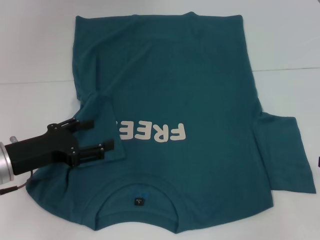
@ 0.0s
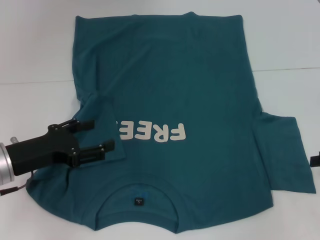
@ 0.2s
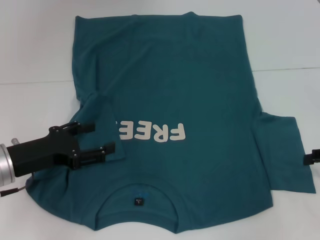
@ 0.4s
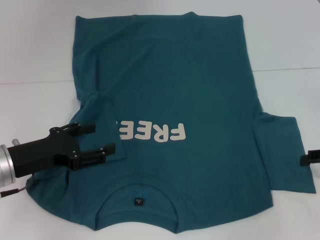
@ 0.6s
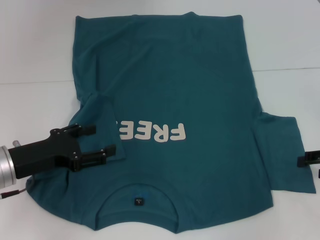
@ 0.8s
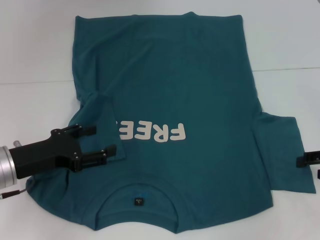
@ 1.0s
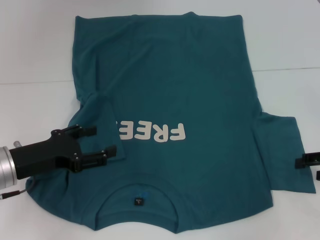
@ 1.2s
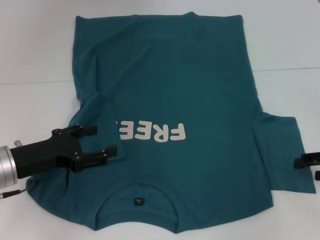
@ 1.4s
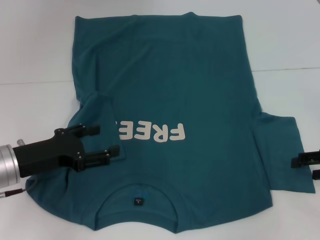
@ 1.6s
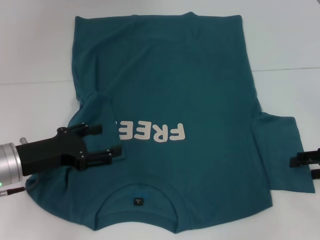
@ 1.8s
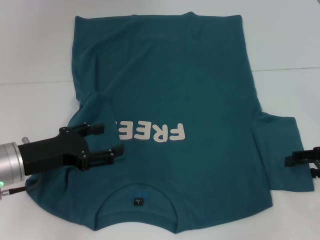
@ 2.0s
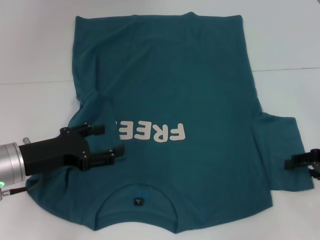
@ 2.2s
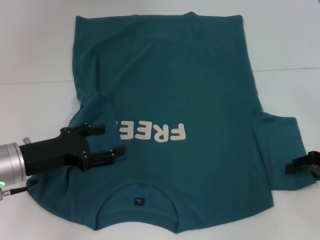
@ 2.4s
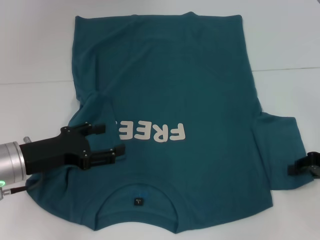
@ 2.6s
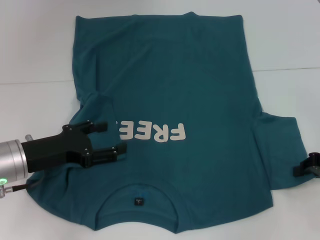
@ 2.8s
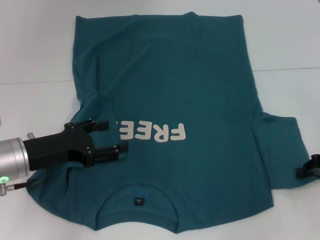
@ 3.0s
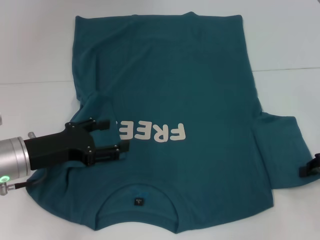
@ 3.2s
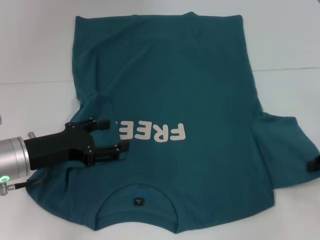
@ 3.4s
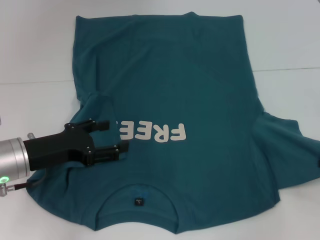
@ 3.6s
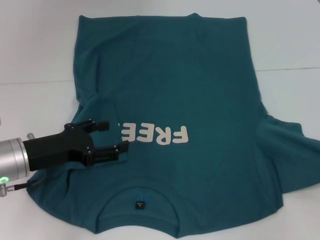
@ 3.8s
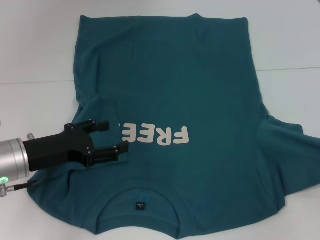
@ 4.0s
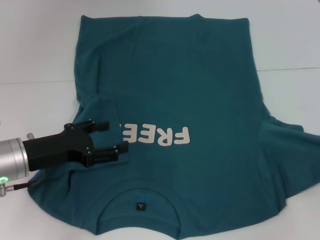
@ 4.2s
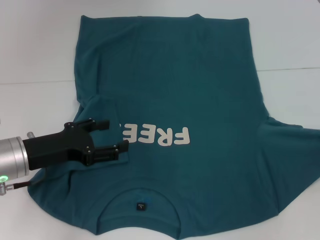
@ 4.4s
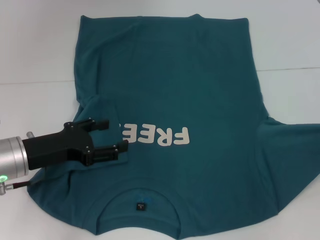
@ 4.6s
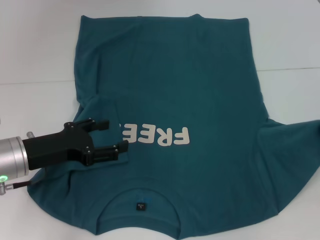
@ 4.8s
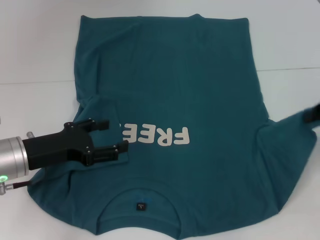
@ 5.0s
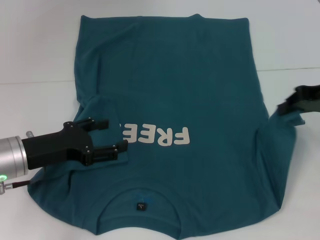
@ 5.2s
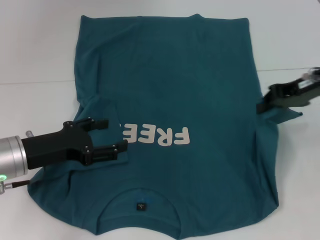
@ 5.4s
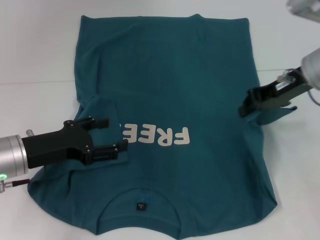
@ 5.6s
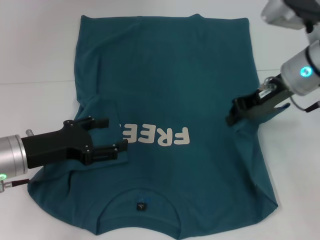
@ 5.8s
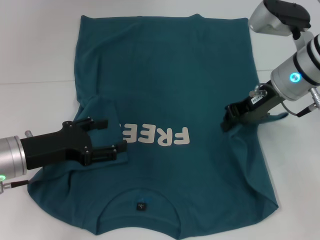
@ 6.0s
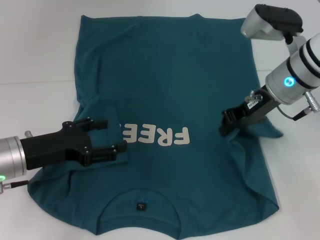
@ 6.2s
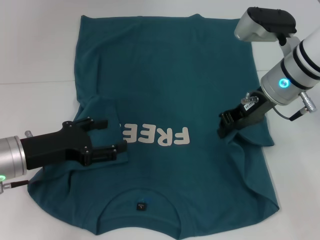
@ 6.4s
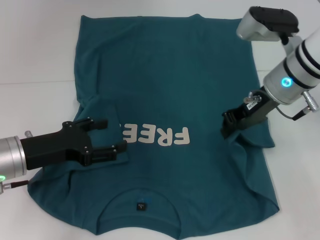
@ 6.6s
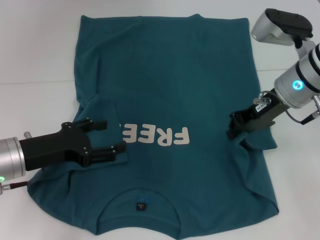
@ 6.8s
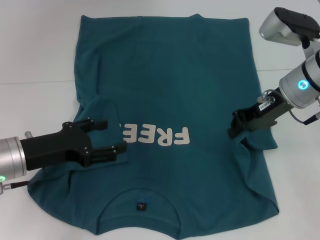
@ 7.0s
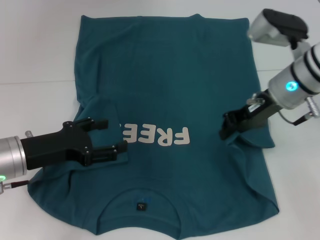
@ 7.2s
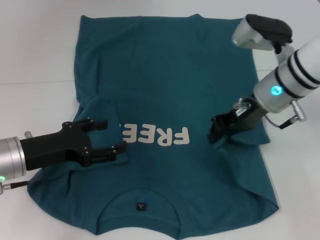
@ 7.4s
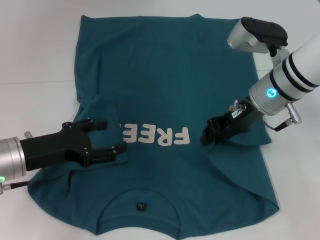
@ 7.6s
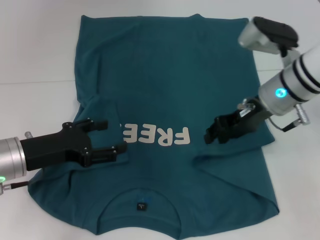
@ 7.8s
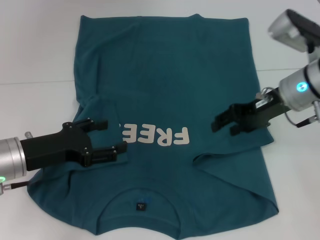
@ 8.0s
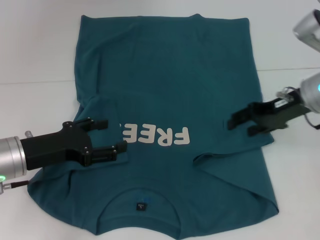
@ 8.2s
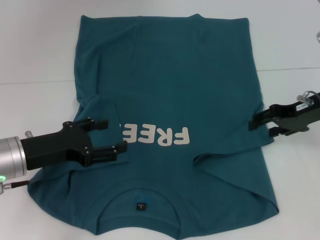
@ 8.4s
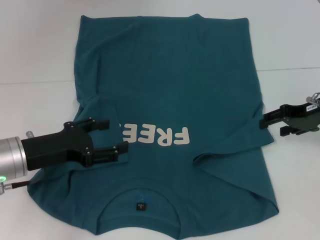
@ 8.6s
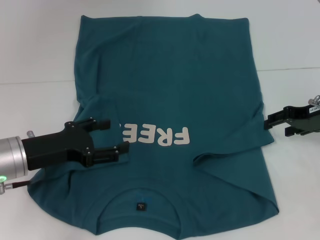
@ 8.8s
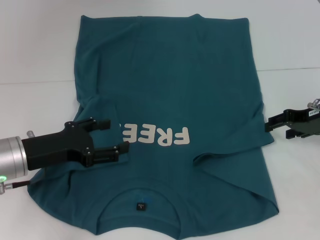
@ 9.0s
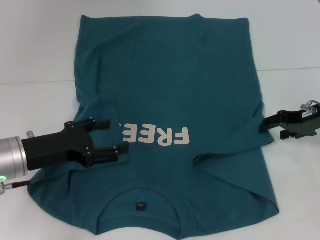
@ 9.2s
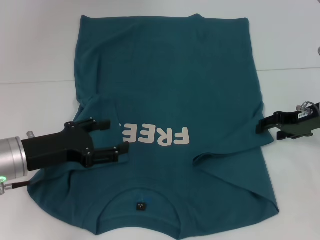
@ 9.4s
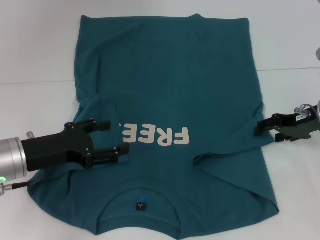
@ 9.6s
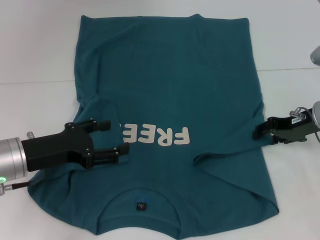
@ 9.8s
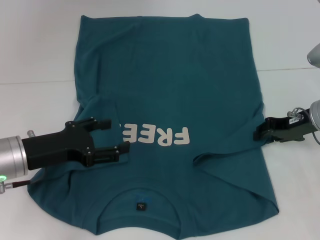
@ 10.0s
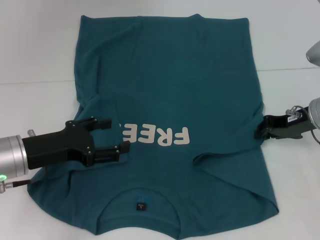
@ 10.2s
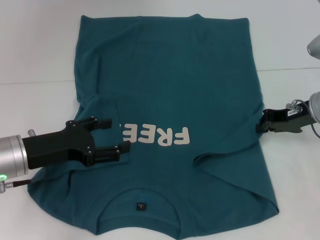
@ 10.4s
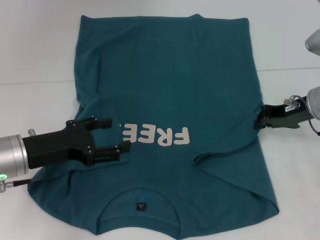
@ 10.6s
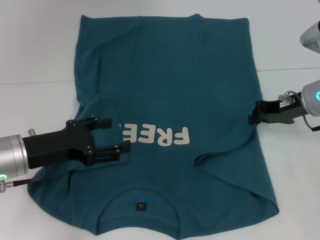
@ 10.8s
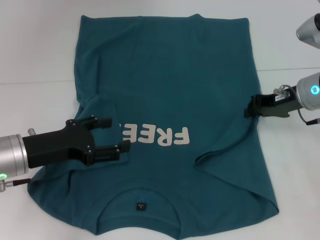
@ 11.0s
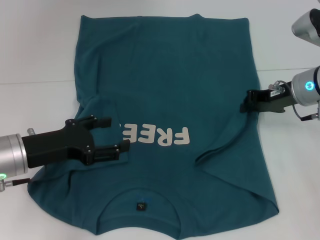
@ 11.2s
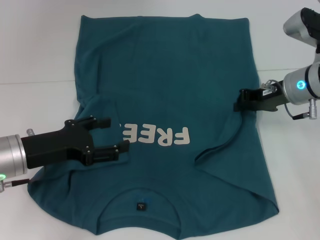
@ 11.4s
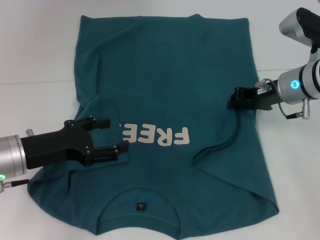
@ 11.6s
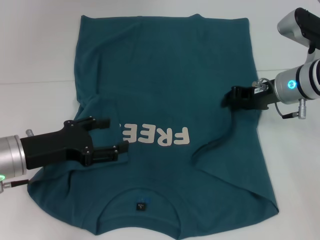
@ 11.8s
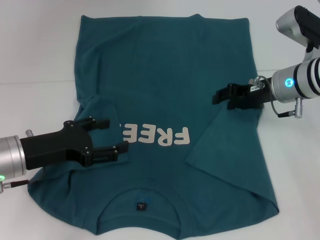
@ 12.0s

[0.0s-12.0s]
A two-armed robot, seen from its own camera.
0.0s to 1.6s: The right gripper ends up approximately 5 cm from where it was.
1.6s to 3.0s: The right gripper closes its fingers.
3.0s to 4.4s: The right gripper heads upward, covering about 5 cm.
4.4s to 6.0s: The right gripper shifts approximately 25 cm to the left and forward.
6.0s to 7.6s: There are only small adjustments of the grippers.
7.6s to 9.0s: The right gripper moves to the right, roughly 15 cm, and opens up.
9.0s to 10.4s: The right gripper closes up.
10.4s to 12.0s: The right gripper goes roughly 5 cm to the left.

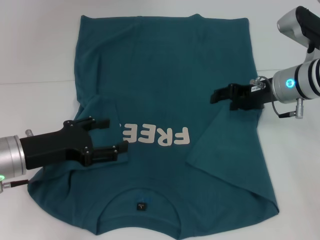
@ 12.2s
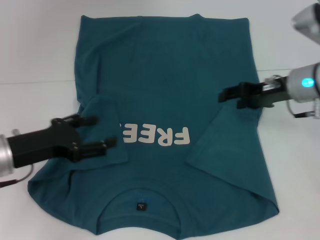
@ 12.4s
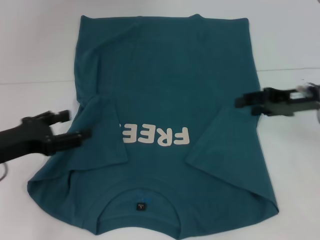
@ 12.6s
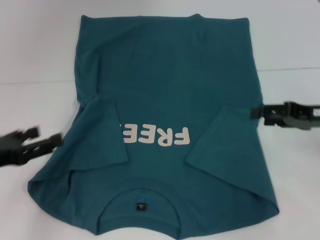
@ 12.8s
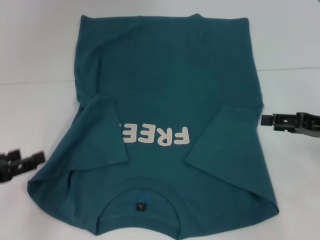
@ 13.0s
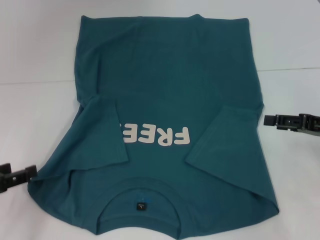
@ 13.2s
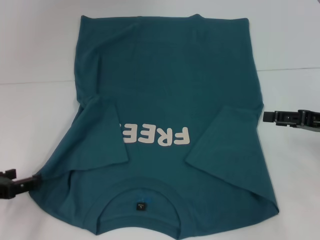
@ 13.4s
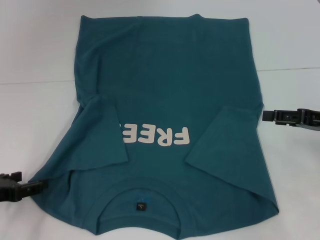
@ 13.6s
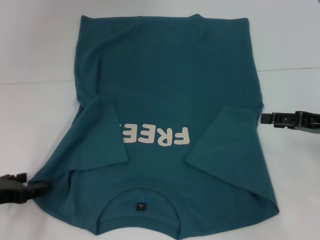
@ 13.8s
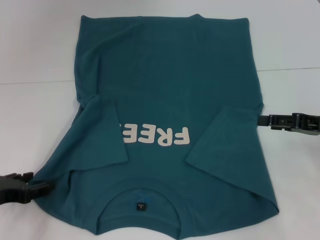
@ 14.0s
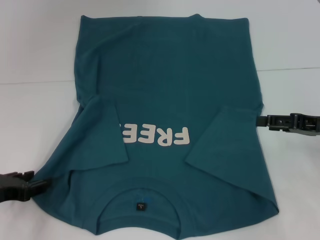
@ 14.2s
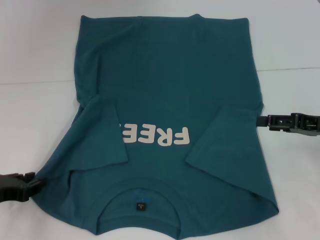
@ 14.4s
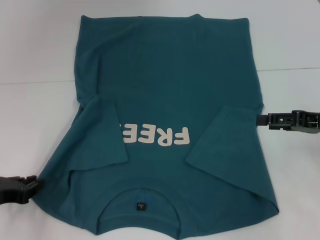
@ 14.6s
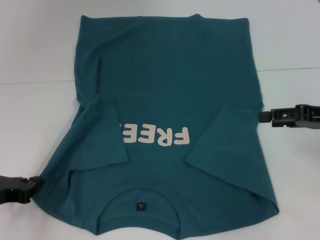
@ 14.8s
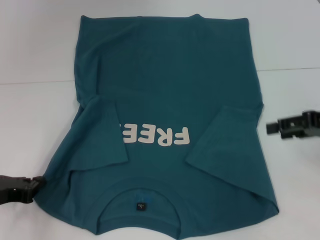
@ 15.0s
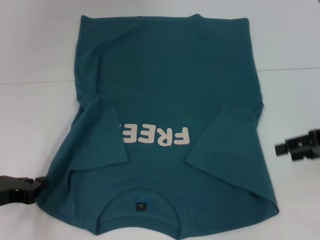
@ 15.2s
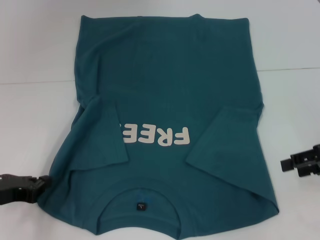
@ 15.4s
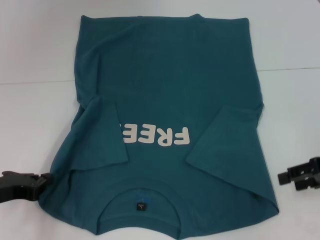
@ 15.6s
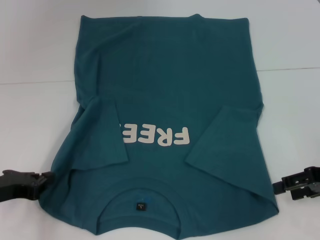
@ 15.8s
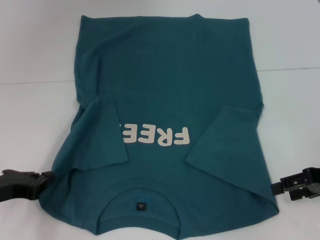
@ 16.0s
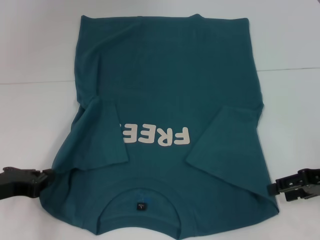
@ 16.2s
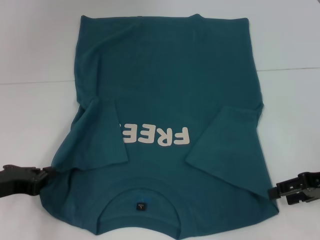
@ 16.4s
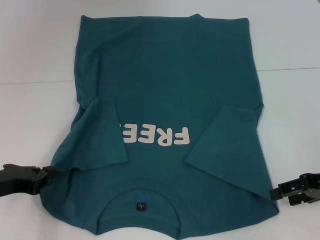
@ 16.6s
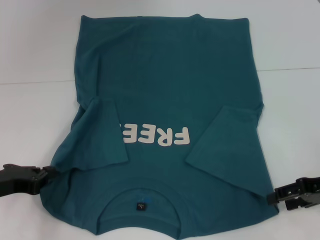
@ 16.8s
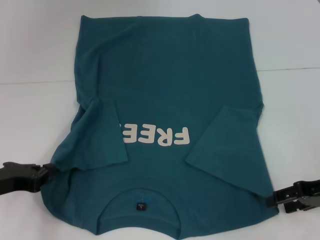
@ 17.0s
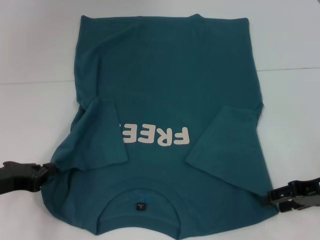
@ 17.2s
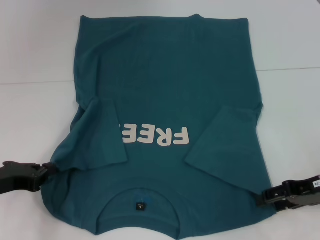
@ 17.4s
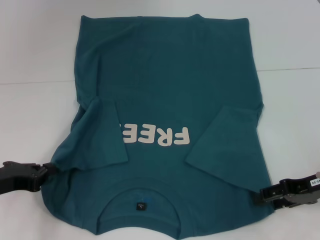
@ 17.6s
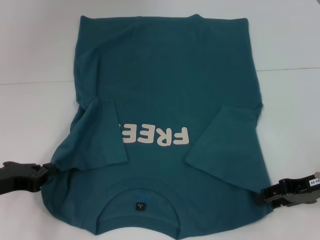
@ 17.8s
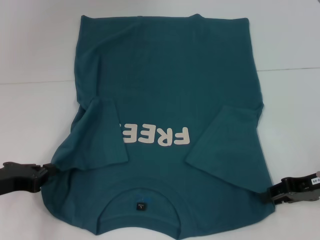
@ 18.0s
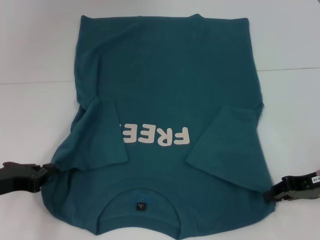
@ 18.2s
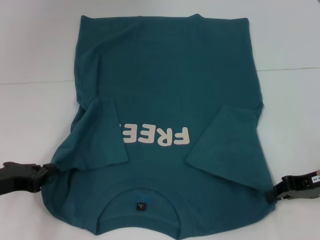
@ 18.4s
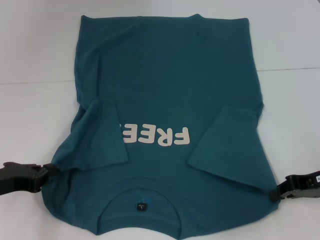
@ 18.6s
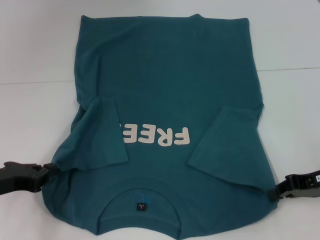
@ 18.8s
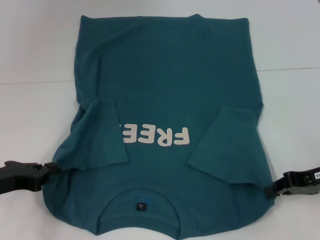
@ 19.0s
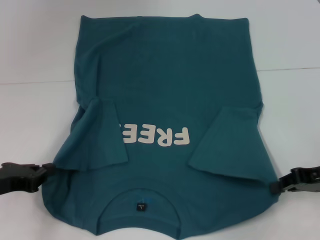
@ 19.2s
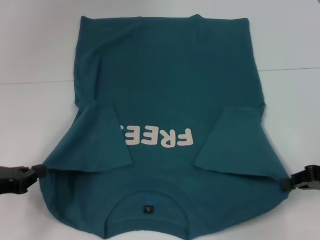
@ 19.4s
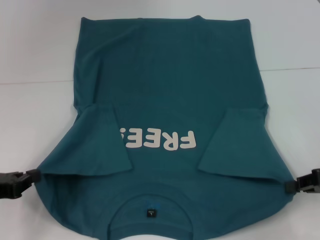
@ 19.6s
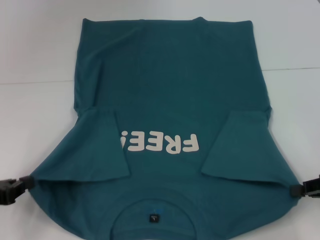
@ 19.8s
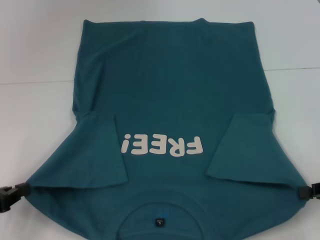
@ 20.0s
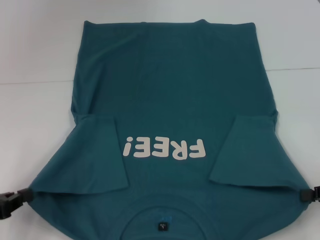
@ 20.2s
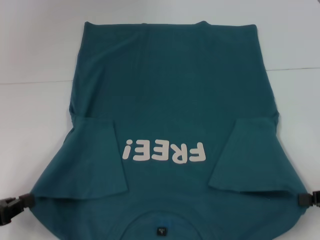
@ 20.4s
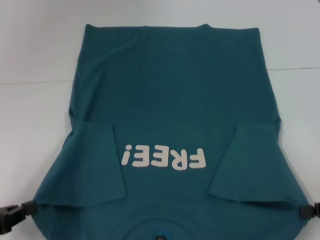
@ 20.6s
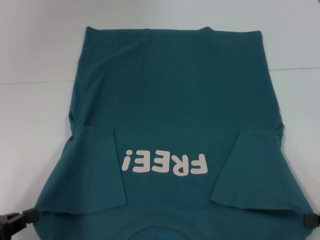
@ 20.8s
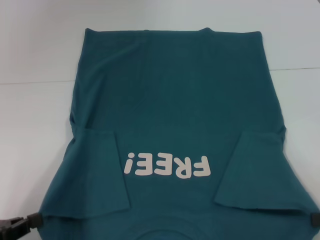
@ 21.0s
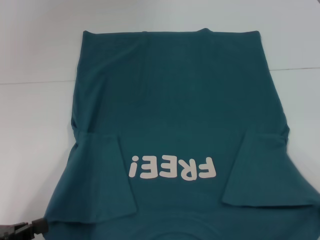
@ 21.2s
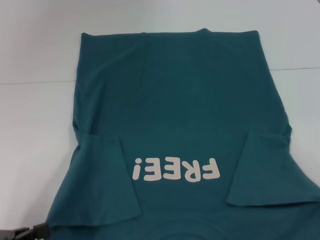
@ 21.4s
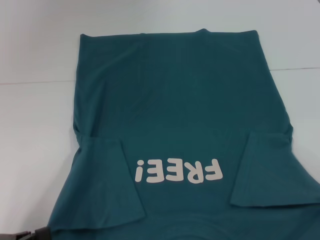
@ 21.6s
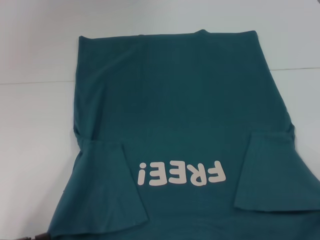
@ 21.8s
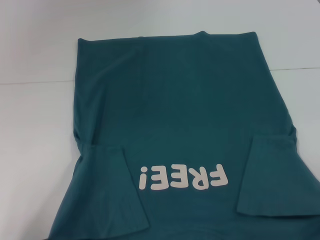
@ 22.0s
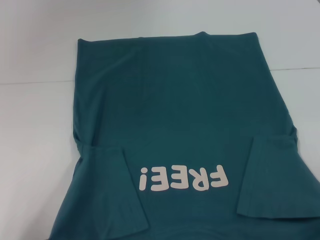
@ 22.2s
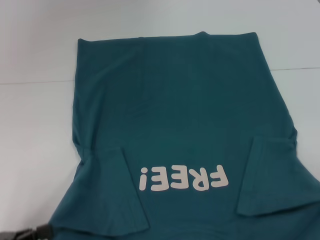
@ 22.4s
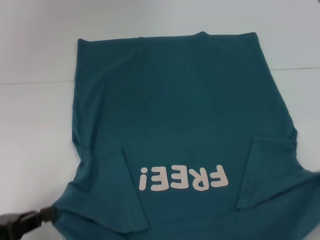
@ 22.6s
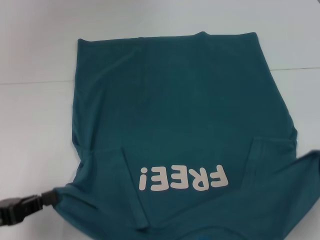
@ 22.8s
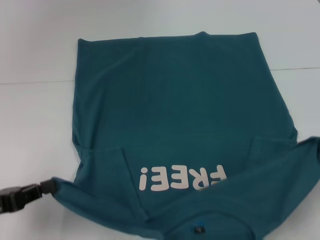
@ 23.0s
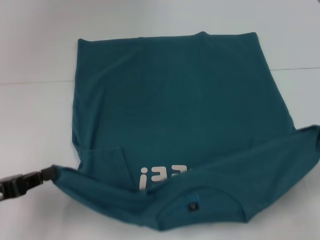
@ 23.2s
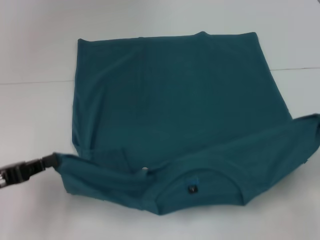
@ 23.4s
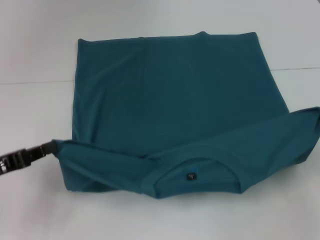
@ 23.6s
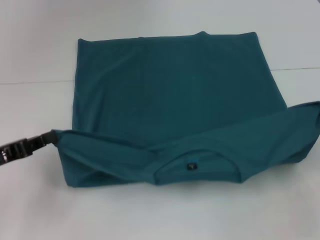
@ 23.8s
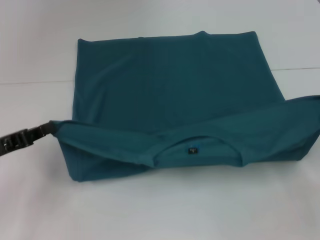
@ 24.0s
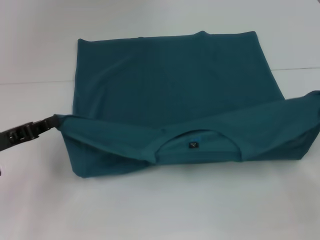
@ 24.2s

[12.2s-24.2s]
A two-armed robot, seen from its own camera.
Step, 12.4s to 14.8s: Grab the bottom left corner with your left hand.
Step, 15.0s to 18.4s: Grab the bottom right corner with your right hand.
12.2s to 13.8s: The left gripper travels to the left by about 10 cm. The right gripper is displaced to the right and backward by some 15 cm.
13.8s to 15.2s: The left gripper closes its fingers.
15.2s to 16.6s: The right gripper shifts by roughly 5 cm.
16.6s to 18.2s: The right gripper closes up.
18.2s to 19.8s: The right gripper shifts by some 5 cm, and closes its fingers.
19.8s to 21.2s: Both grippers travel together backward, about 5 cm.
21.2s to 22.6s: The grippers stay close to where they were, moving slightly.
22.6s to 24.2s: The left gripper shifts some 10 cm forward, while the right gripper goes some 5 cm forward.
